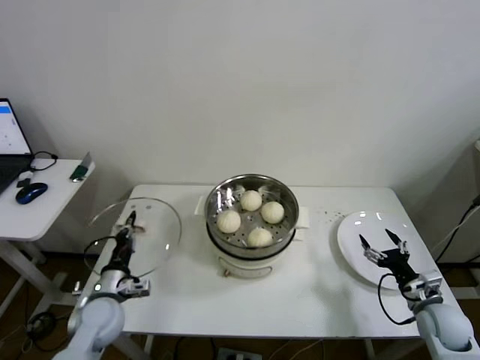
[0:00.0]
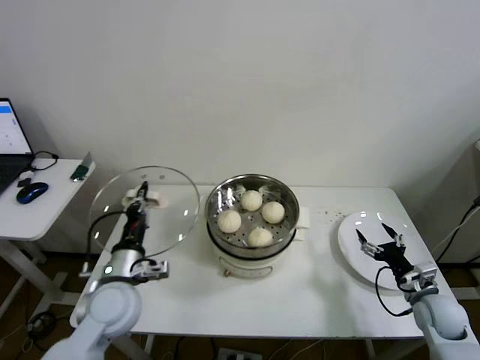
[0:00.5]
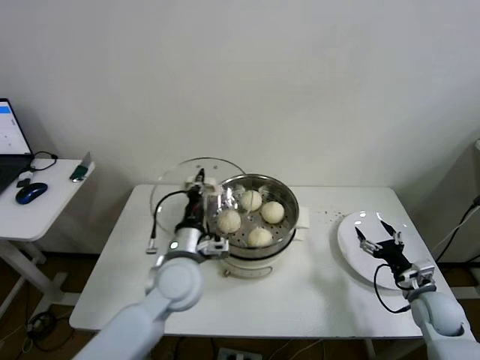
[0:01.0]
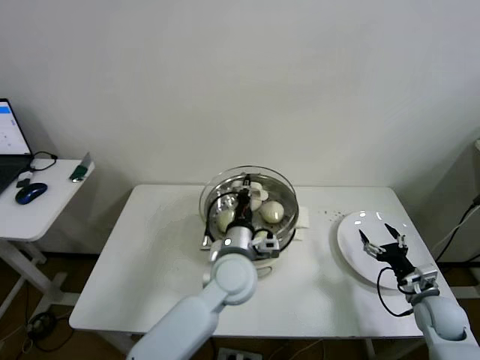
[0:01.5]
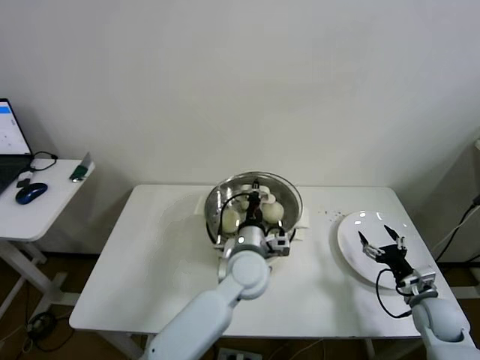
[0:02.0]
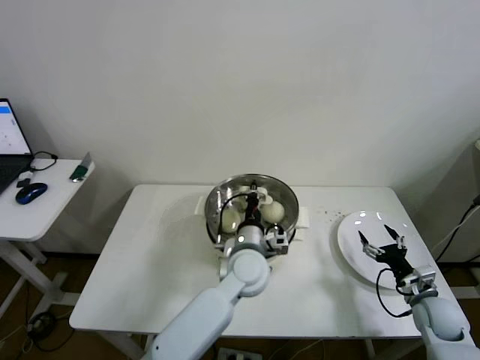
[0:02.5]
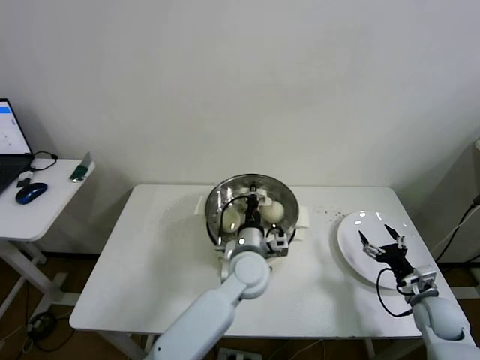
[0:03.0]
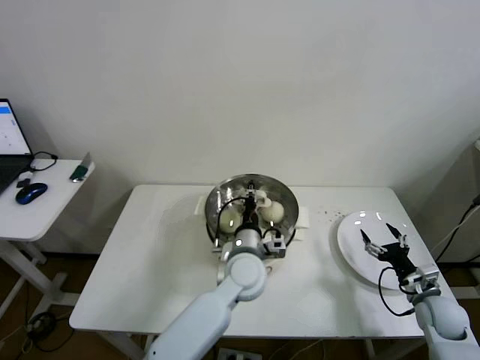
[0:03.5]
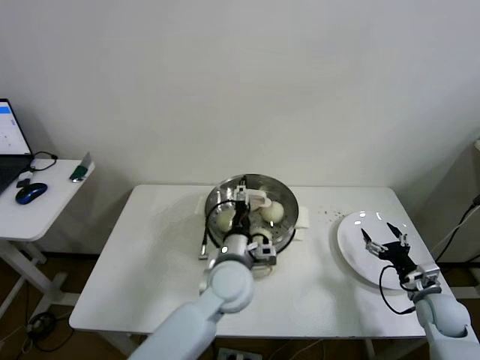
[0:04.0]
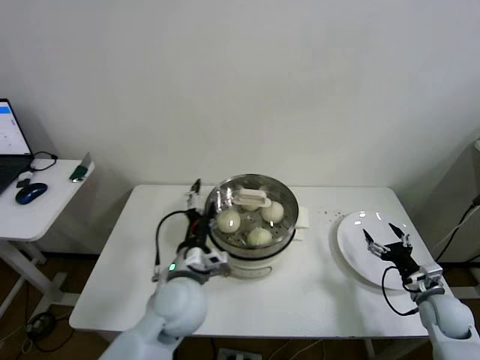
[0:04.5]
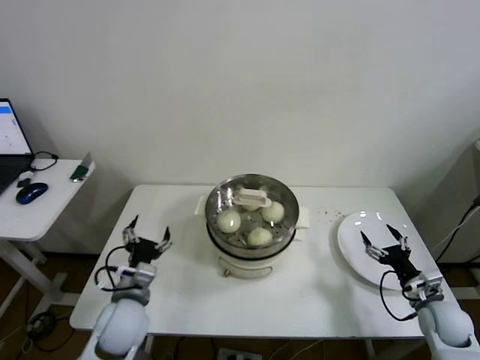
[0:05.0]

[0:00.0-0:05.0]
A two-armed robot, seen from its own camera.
Step, 0:00.0 to 0:04.0: Place the pot lid on the steamer with left gripper.
0:00.0 to 0:02.5: The left gripper heads to the right, covering some 35 cm.
0:02.5 to 0:05.0: The left gripper shifts roughly 25 cm to the left, and opens up.

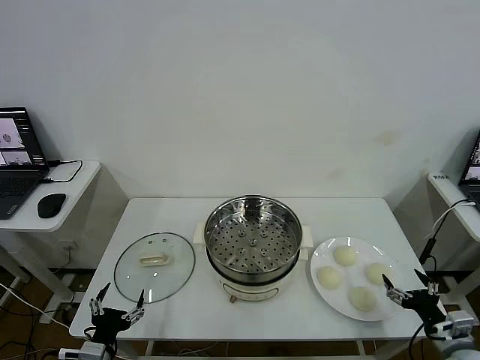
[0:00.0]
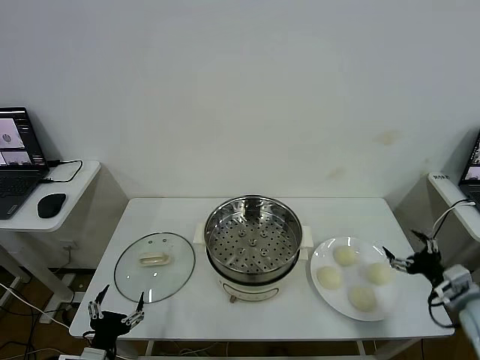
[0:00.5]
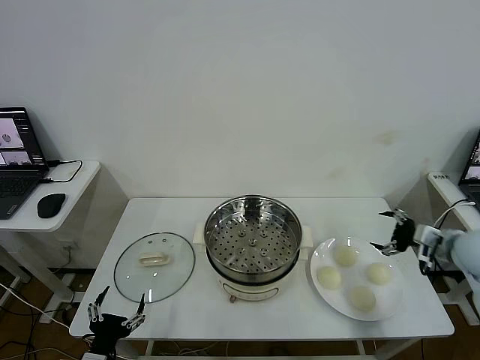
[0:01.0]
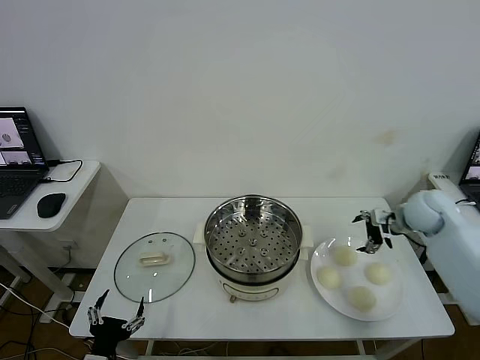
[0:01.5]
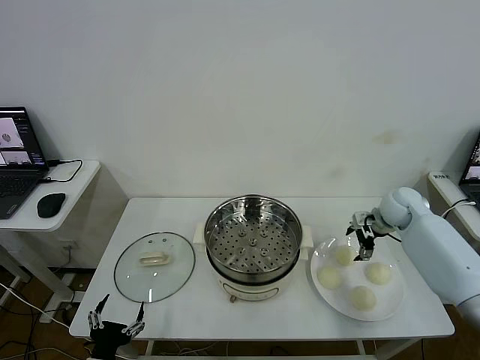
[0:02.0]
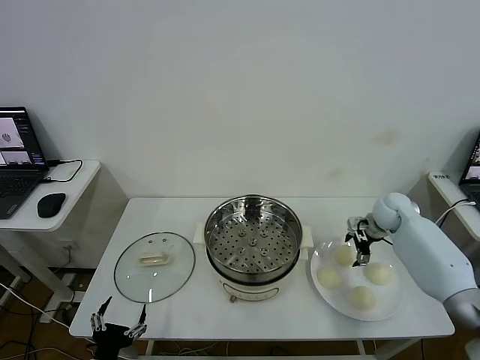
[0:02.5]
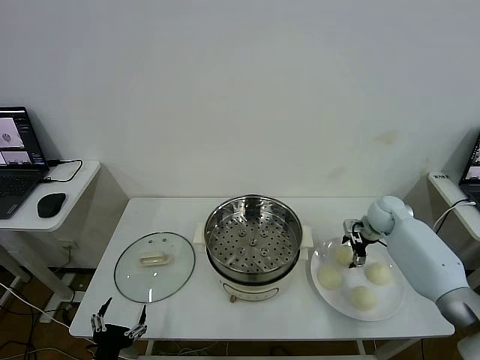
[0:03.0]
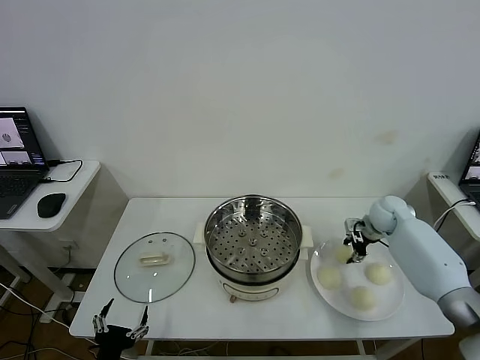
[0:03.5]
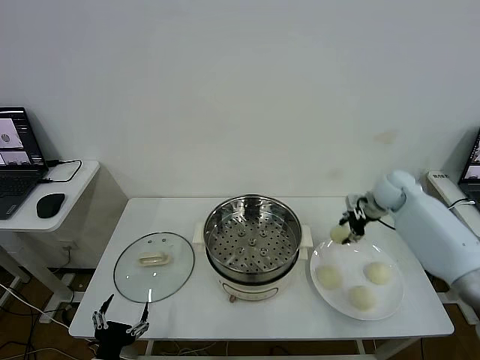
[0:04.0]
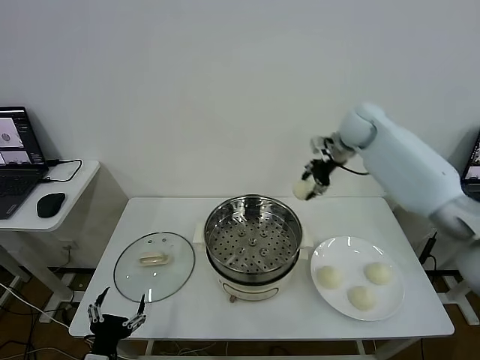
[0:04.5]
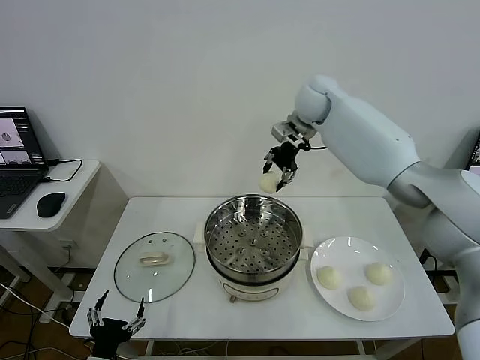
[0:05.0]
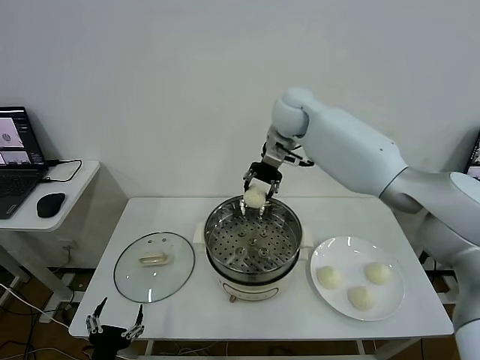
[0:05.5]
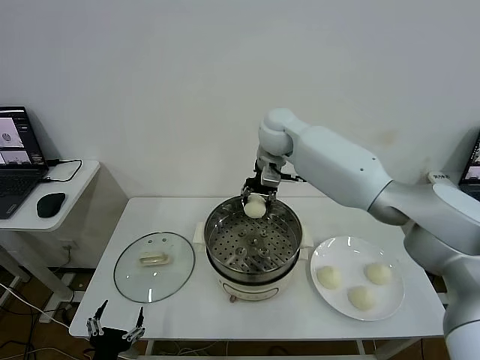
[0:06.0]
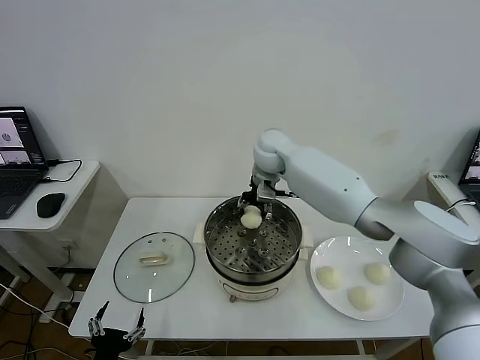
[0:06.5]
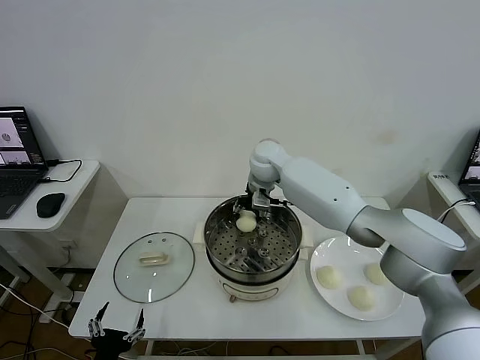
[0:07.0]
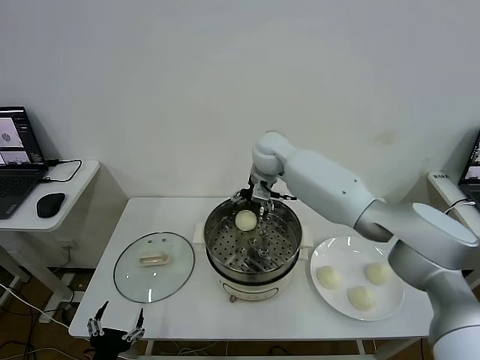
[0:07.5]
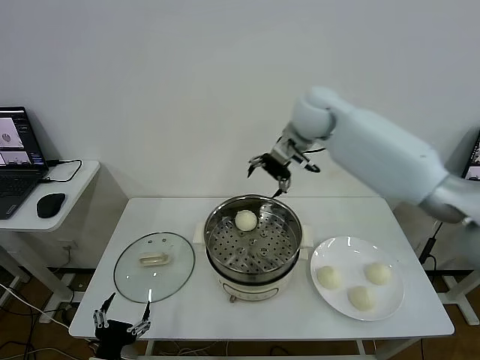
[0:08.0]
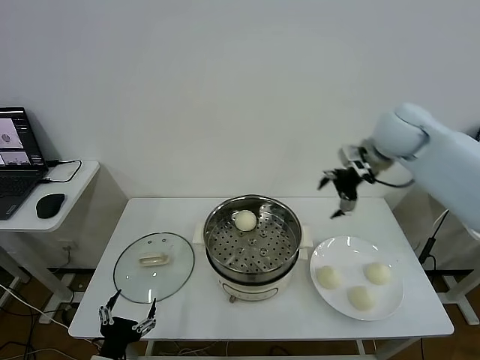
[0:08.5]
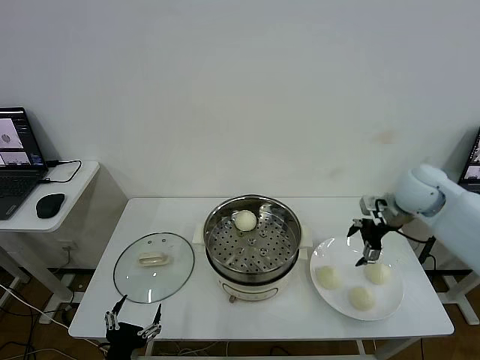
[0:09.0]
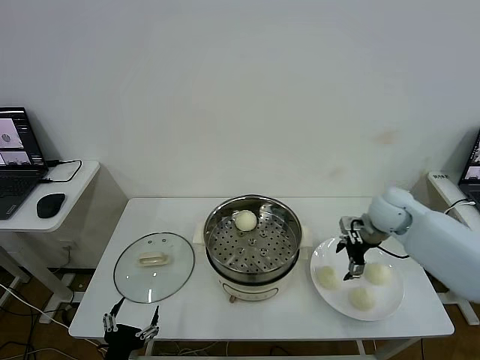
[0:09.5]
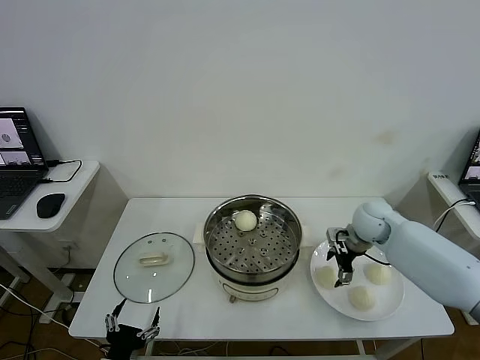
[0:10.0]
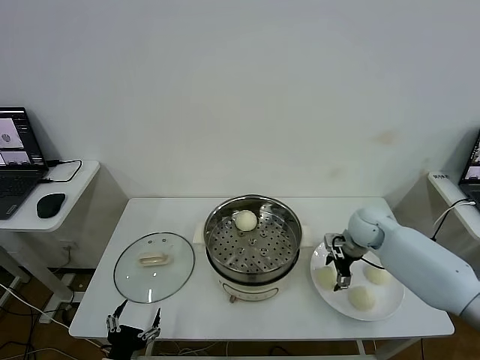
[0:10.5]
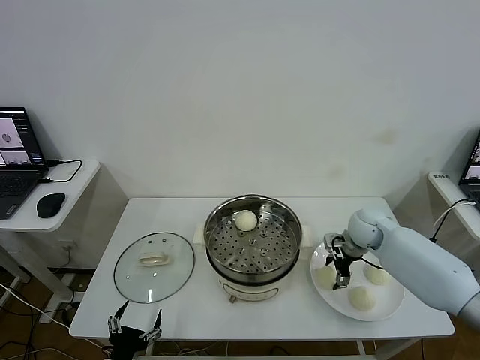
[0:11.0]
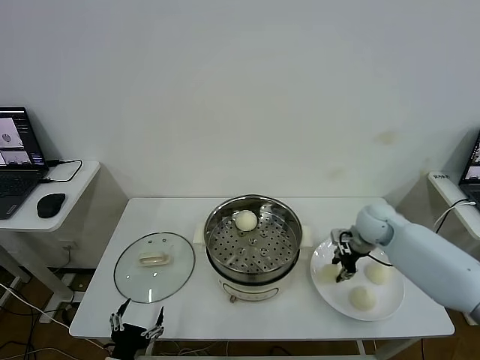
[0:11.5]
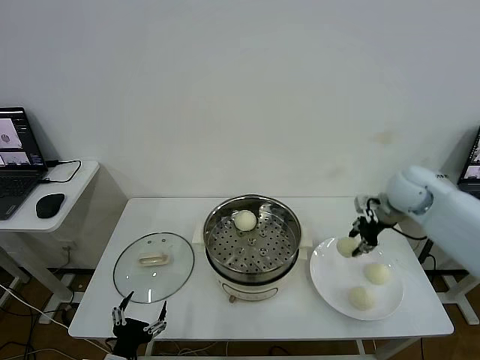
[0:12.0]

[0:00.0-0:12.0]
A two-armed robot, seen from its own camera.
Step, 0:00.0 to 0:03.5: Grasp the baozi in the plate with right gripper.
Step, 0:04.0 to 0:07.0: Place the baozi on the steamer with right gripper.
Step, 0:07.5 to 0:11.0: Grasp the baozi in the plate with right gripper.
0:02.0 to 0:04.0: The right gripper goes approximately 10 cm upward, and closes its fingers.
0:04.0 to 0:06.0: The right gripper moves to the left, about 30 cm.
0:06.0 to 0:08.0: The right gripper travels to the right and upward by some 15 cm, and opens its fingers.
0:08.0 to 0:10.0: The right gripper moves downward and to the right, approximately 30 cm.
0:10.0 to 0:12.0: The right gripper moves upward, some 15 cm, and closes.

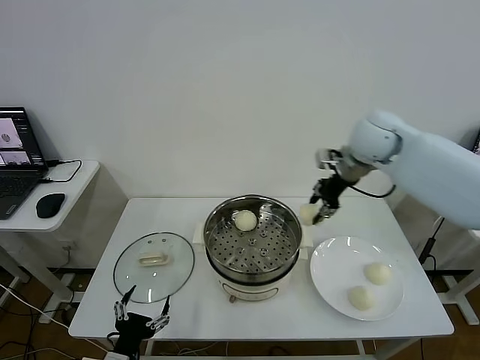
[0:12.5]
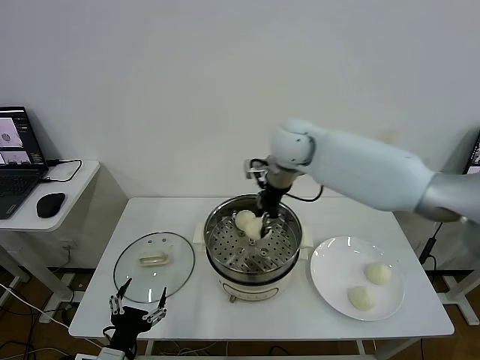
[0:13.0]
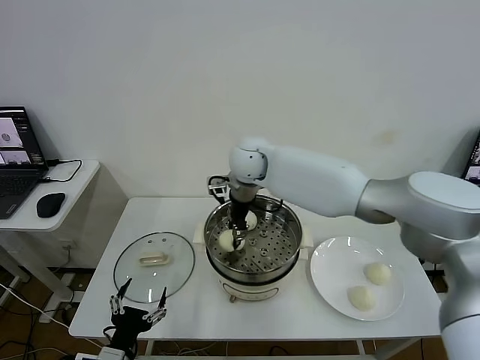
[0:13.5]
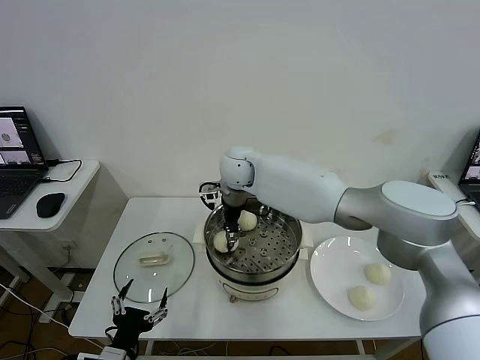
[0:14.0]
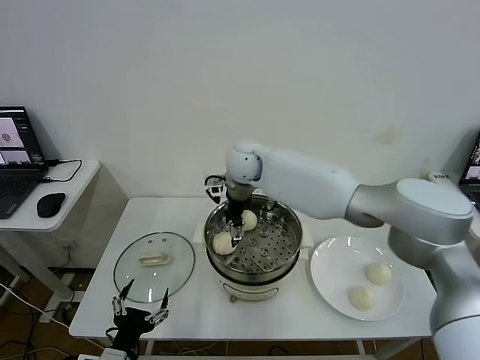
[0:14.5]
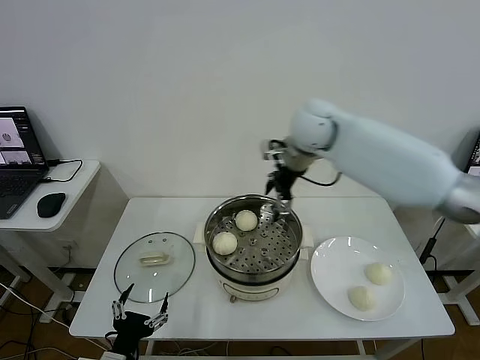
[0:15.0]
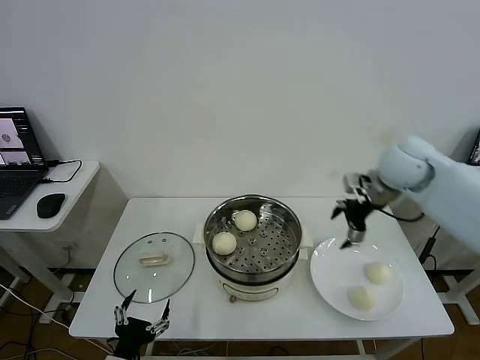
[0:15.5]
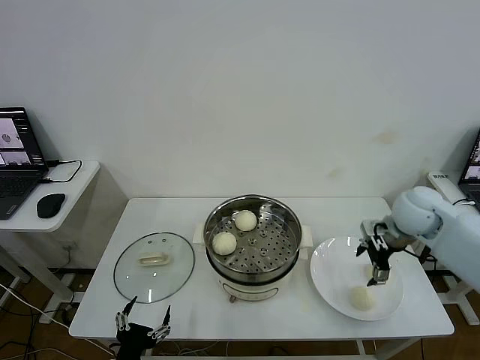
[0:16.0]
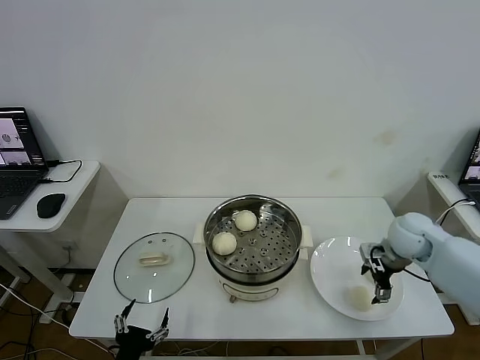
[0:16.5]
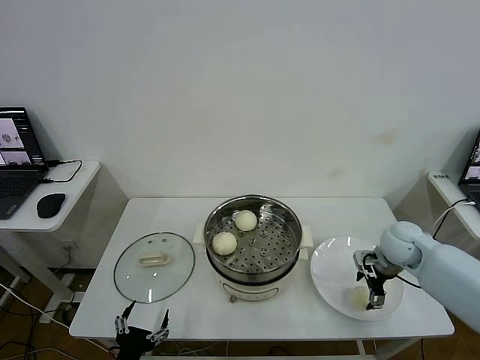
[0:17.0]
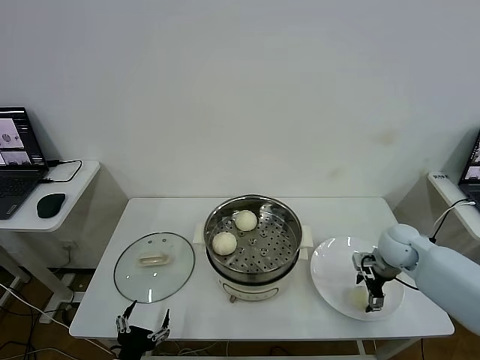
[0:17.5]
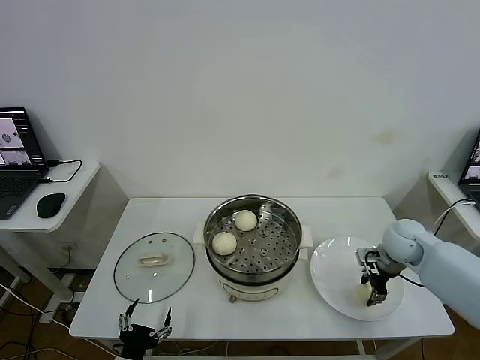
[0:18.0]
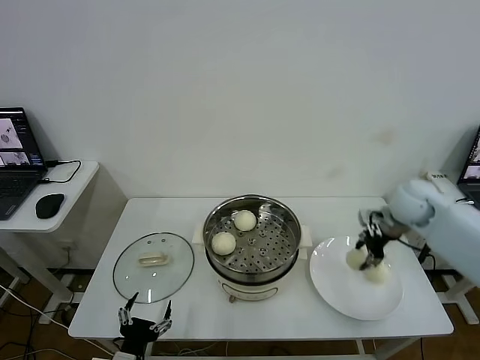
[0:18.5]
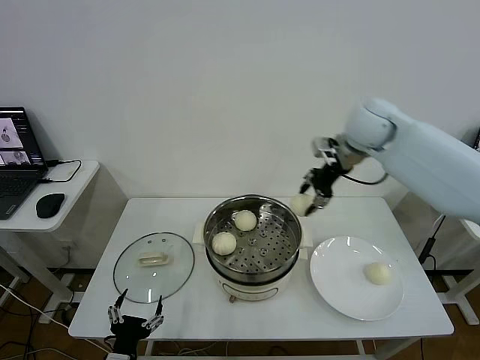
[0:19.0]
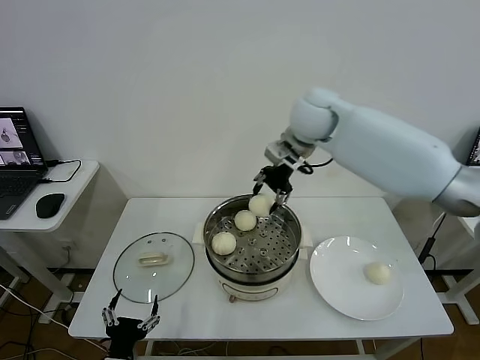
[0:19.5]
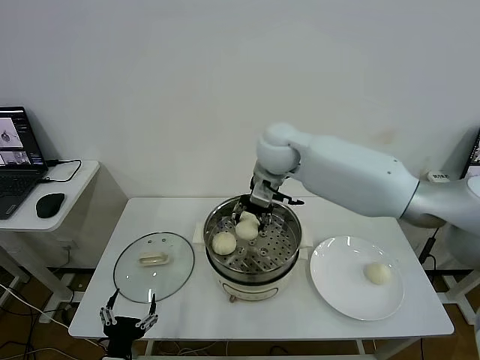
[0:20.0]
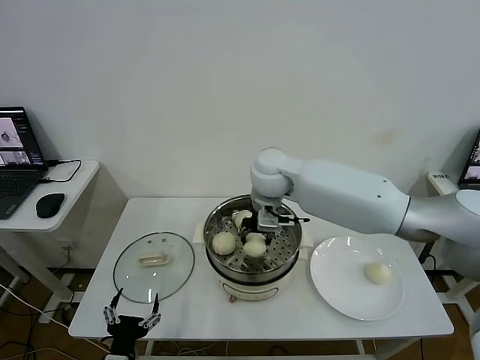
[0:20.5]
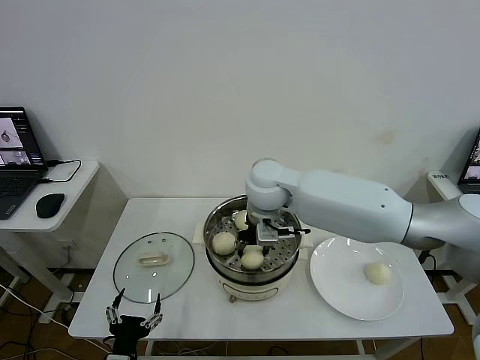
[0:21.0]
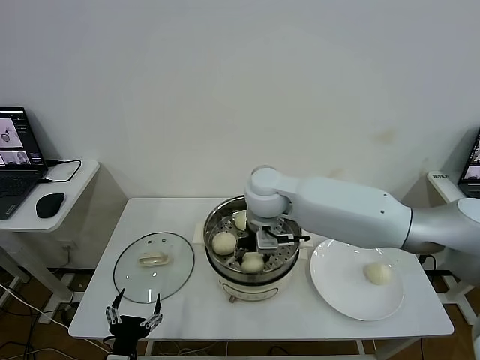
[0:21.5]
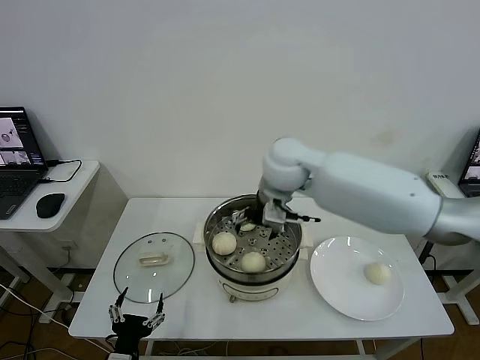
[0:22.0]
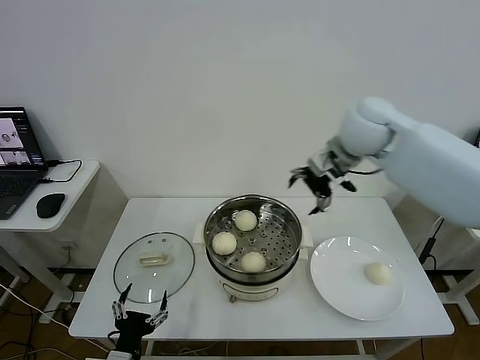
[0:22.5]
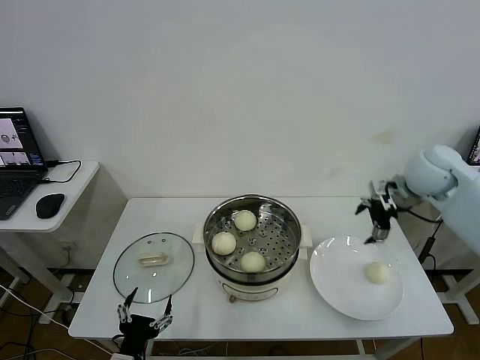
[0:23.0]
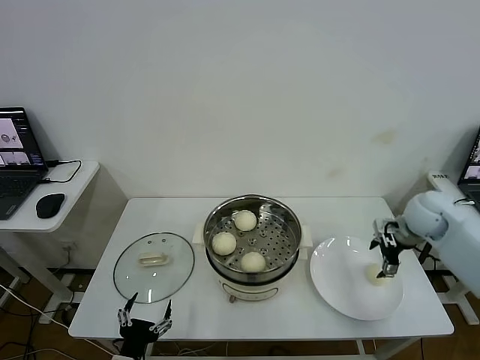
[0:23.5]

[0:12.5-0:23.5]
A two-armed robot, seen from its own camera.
Step, 0:12.5 to 0:14.0: Place the baozi on the steamer with right gripper.
Step, 0:14.5 to 0:17.5: Grasp the baozi in the plate with right gripper.
Step, 0:18.5 to 0:21.5: Place the baozi on the steamer with right gripper.
0:12.5 to 0:14.5: The right gripper travels to the left by roughly 20 cm, and opens up.
0:14.5 to 0:16.0: The right gripper heads to the right, covering about 35 cm.
0:16.0 to 0:18.0: The right gripper goes approximately 10 cm downward, and closes its fingers.
0:18.0 to 0:20.0: The right gripper shifts roughly 35 cm to the left and upward.
0:20.0 to 0:21.5: The right gripper shifts approximately 10 cm backward and downward.
0:21.5 to 0:23.5: The right gripper travels to the right by some 35 cm, and opens up.
